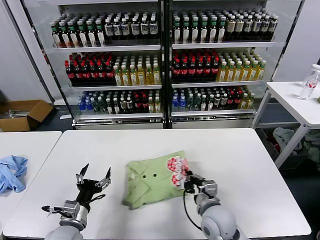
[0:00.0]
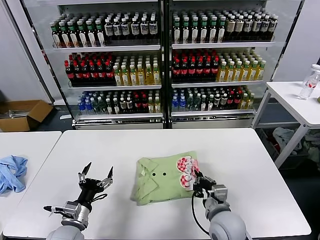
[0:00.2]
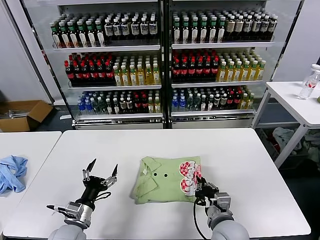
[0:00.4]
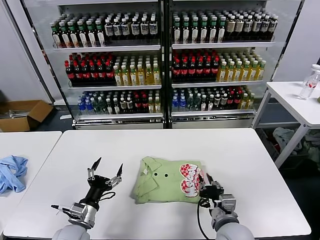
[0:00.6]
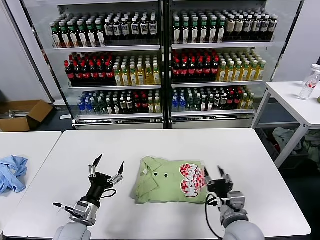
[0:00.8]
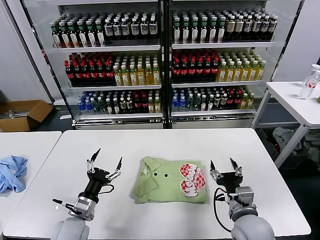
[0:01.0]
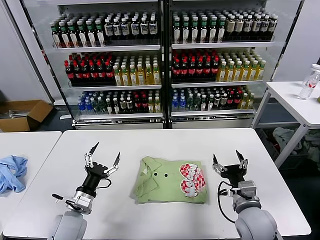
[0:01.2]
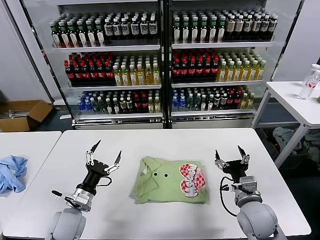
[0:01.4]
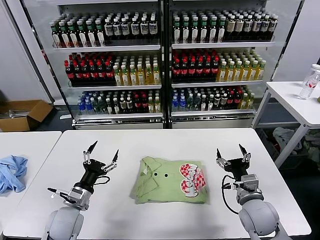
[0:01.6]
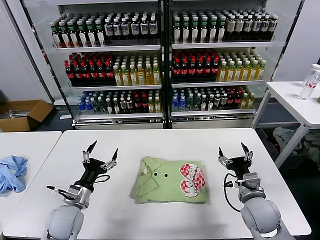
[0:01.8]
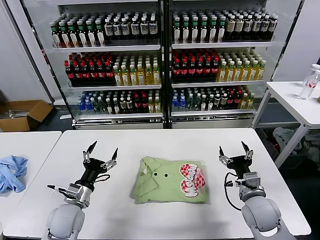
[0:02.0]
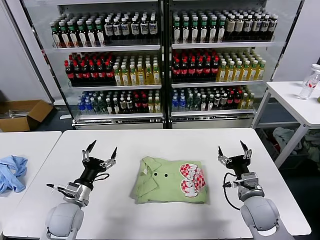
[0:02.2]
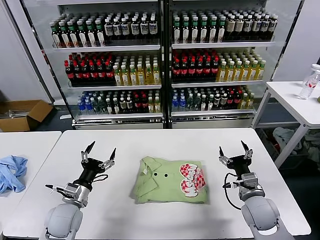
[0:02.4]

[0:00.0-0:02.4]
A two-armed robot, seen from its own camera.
Task of the whole recording: fold and organize the clothes.
0:00.0 to 0:01.2: The right gripper moves to the right, roughly 10 cm, and opens its fingers.
0:01.2 to 0:02.4: The right gripper changes place by approximately 5 cm.

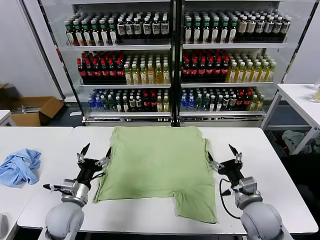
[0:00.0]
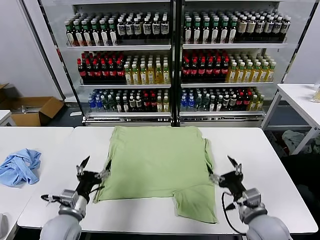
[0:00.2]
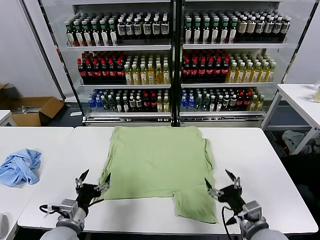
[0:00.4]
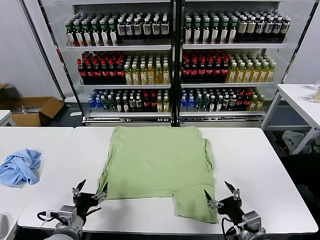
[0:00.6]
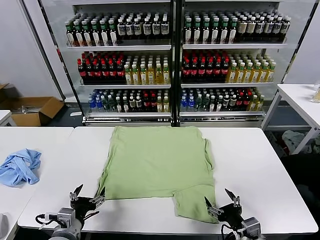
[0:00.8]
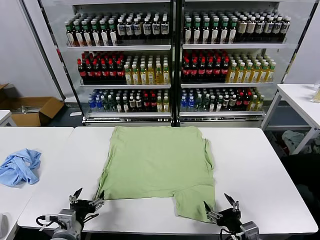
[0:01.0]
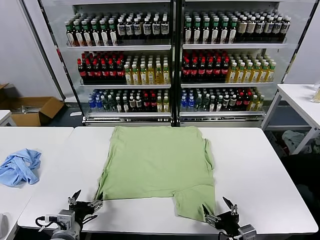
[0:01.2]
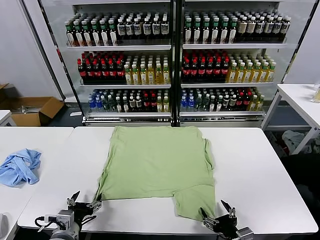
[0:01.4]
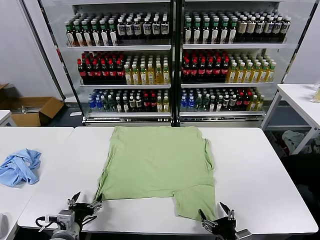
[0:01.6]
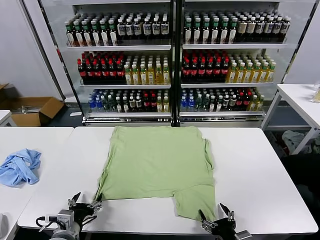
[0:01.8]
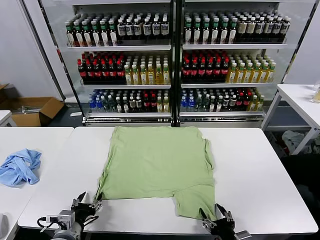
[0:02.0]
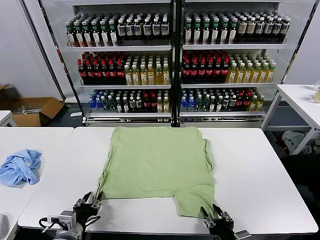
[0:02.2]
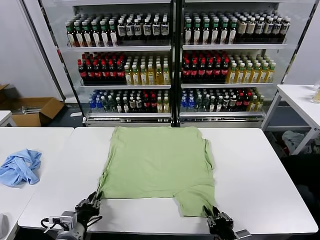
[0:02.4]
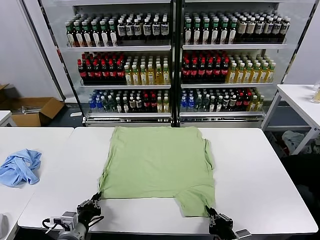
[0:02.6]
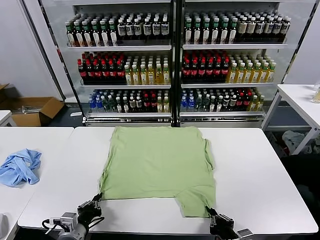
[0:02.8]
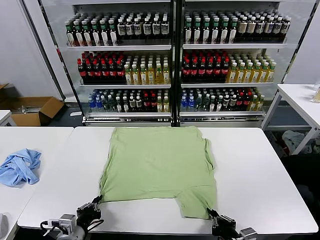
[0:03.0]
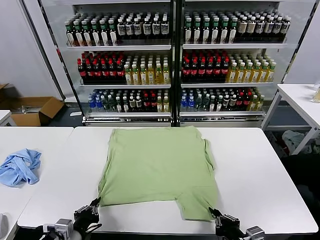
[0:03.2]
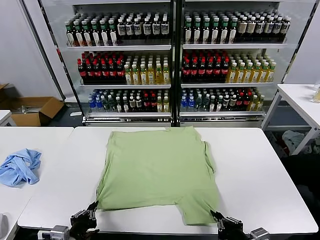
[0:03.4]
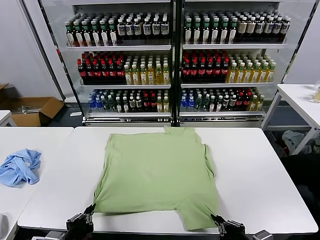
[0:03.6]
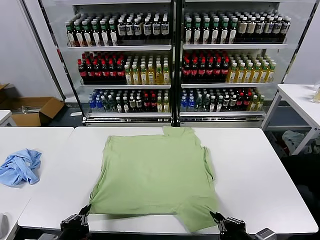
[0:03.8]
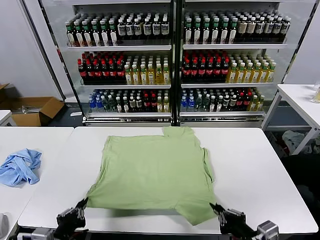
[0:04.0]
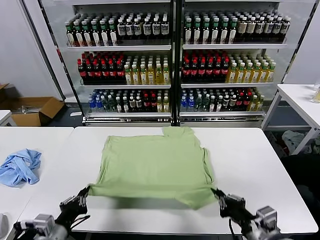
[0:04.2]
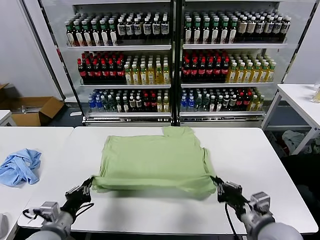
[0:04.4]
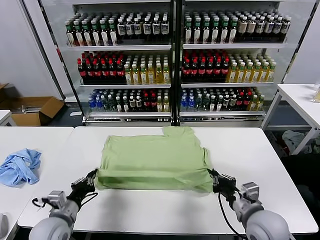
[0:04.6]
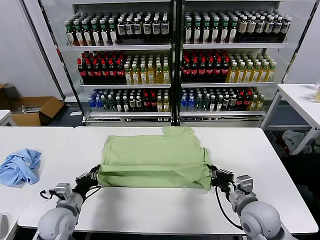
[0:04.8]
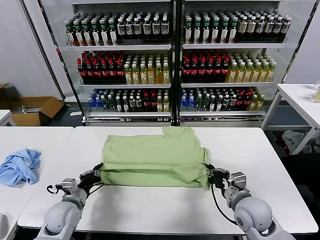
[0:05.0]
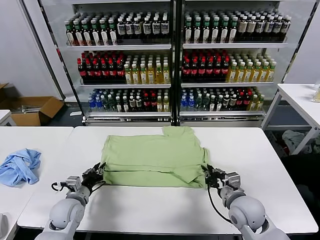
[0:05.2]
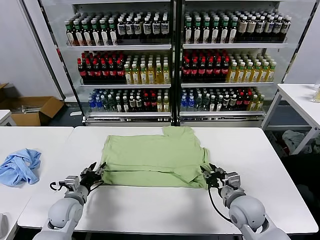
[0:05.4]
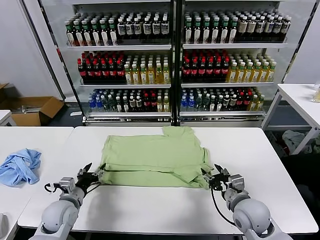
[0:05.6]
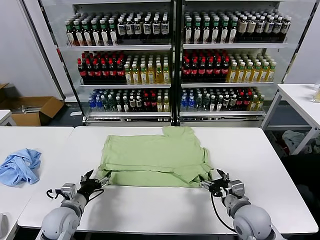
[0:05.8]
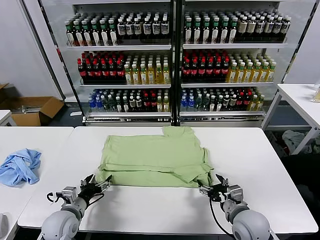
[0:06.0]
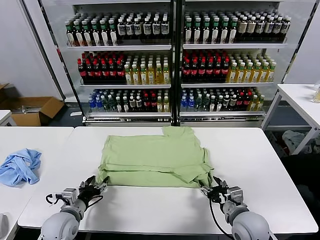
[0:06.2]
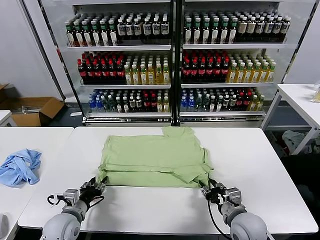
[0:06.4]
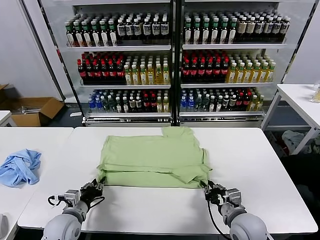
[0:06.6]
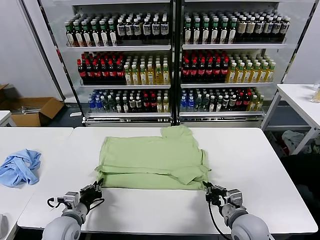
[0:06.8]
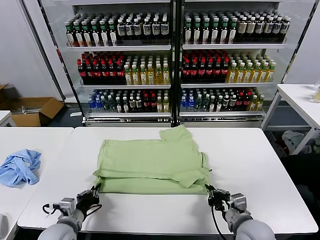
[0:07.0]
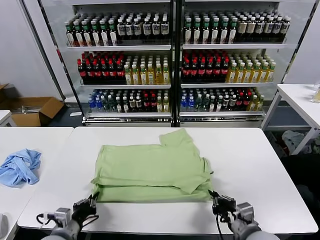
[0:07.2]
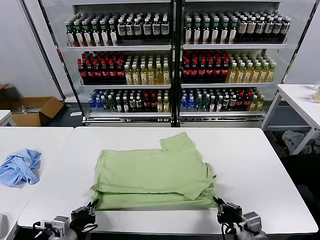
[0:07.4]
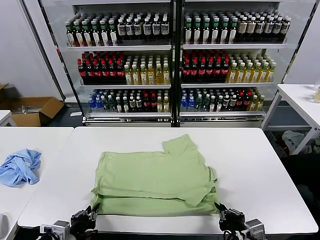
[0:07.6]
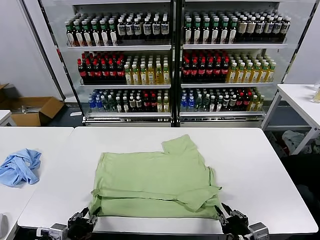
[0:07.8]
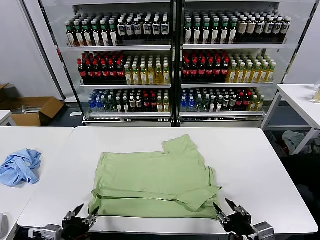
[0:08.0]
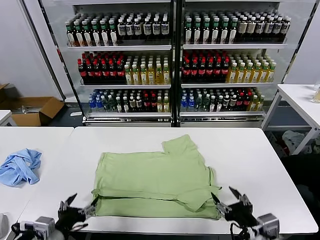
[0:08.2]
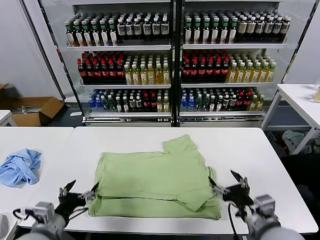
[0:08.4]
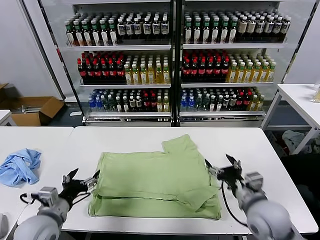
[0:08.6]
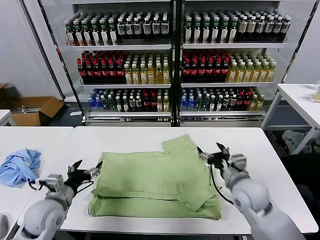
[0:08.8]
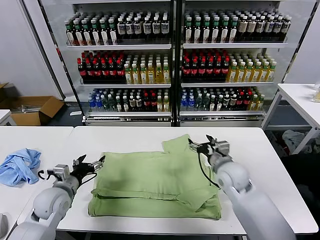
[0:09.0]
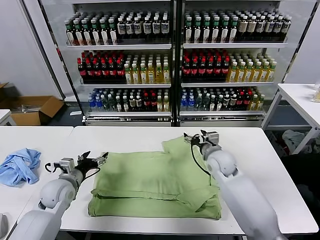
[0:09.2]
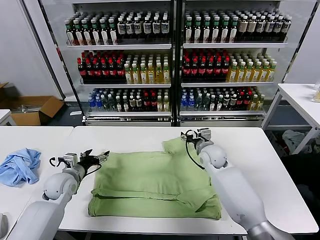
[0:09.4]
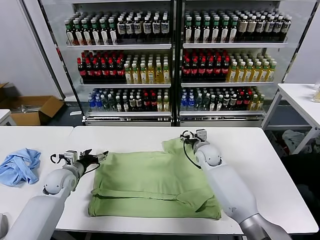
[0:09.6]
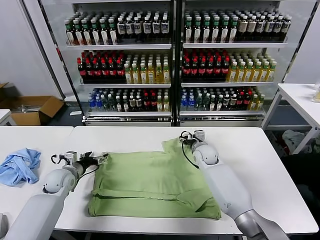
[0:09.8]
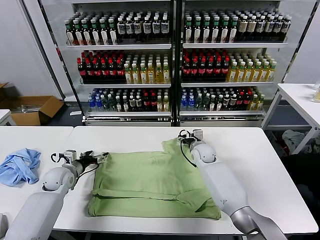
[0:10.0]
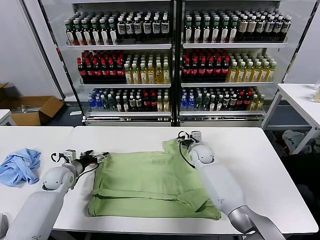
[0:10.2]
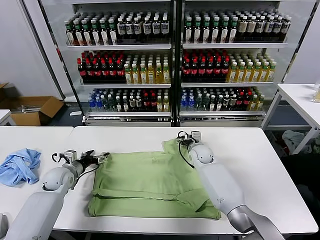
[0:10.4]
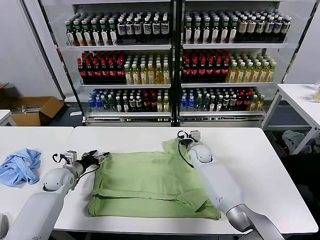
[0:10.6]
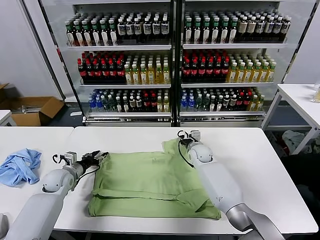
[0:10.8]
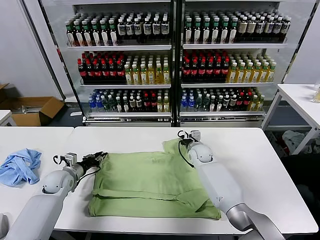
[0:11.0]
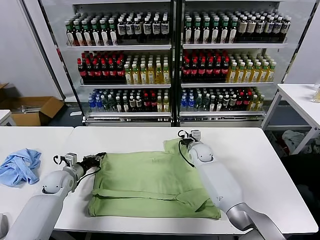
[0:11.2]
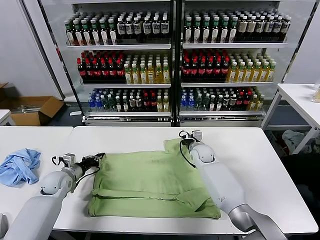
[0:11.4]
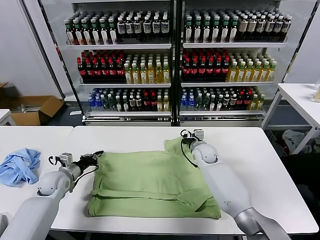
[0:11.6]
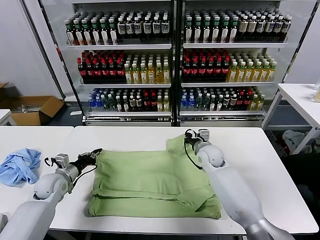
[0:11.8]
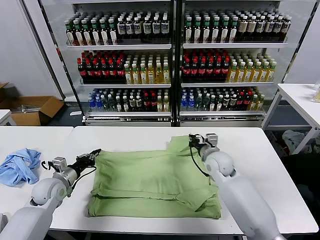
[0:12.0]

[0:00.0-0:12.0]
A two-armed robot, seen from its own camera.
Task of the whole recording: fold and organize the clothes.
Step, 0:00.0 to 0:03.2: use both grippers simultaneously to clamp the lower edge of the clothing fabric.
Step, 0:03.4 to 0:05.6: use both grippers to drag the lower edge of the fabric forward and fold it over the upper edge.
Step, 0:05.8 to 0:07.8: Drag the clothes downward with both gripper.
Step, 0:08.2 to 0:11.2: use both grippers simultaneously to clamp the upper edge of the clothing fabric.
0:01.6 to 0:03.0: The left gripper closes up. Meanwhile the right gripper closes.
0:03.0 to 0:04.4: The left gripper moves about 5 cm backward and comes back; the right gripper heads forward and upward, covering roughly 10 cm.
0:04.4 to 0:06.0: The left gripper shifts some 10 cm forward and downward, and opens its fingers; the right gripper is displaced downward by approximately 5 cm, and opens its fingers.
0:06.0 to 0:07.6: The grippers both shift backward by some 10 cm. The right gripper closes; the left gripper closes.
0:07.6 to 0:09.0: The right gripper is displaced forward by roughly 30 cm, and opens, while the left gripper is displaced forward by roughly 20 cm, and opens its fingers.
0:09.0 to 0:10.4: The left gripper moves forward and to the left, some 10 cm. The right gripper is displaced forward, downward and to the left by some 15 cm.
0:10.4 to 0:12.0: The right gripper travels backward, upward and to the right by roughly 15 cm, and closes up. The left gripper moves backward, about 5 cm, and closes its fingers.

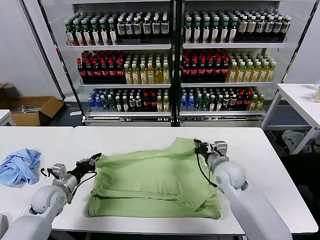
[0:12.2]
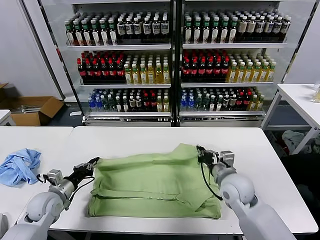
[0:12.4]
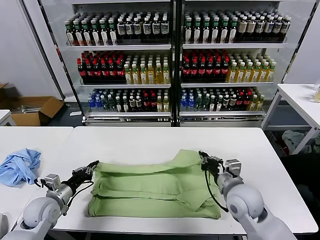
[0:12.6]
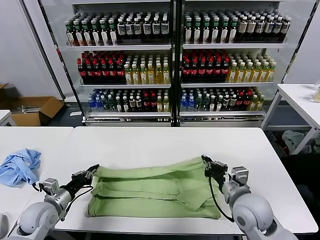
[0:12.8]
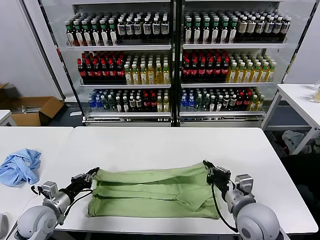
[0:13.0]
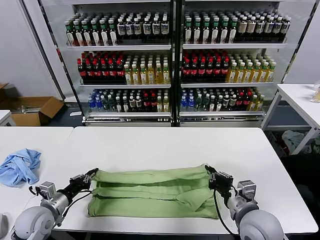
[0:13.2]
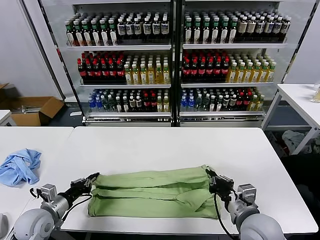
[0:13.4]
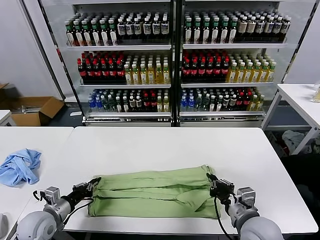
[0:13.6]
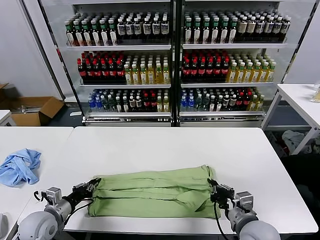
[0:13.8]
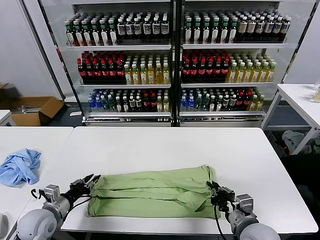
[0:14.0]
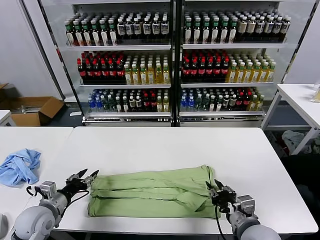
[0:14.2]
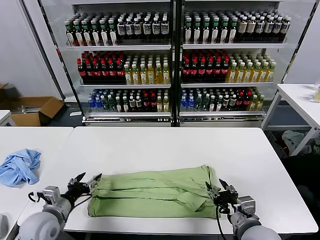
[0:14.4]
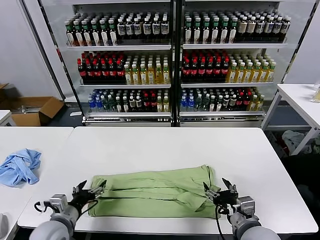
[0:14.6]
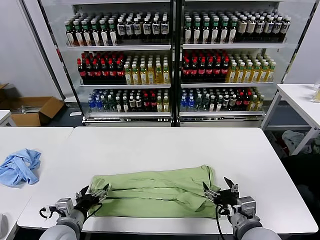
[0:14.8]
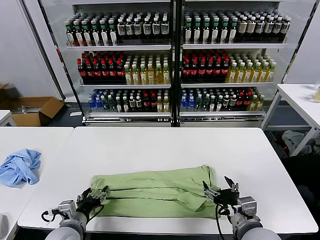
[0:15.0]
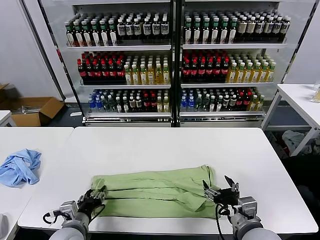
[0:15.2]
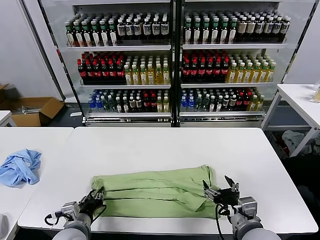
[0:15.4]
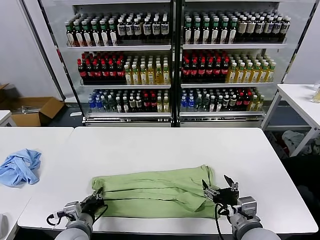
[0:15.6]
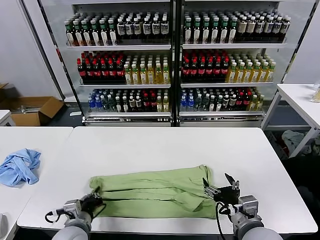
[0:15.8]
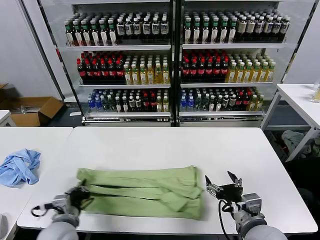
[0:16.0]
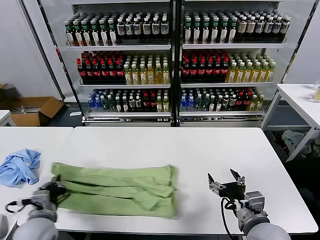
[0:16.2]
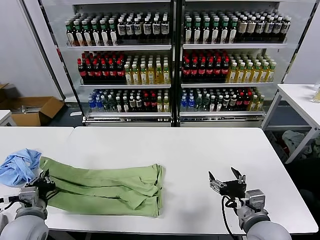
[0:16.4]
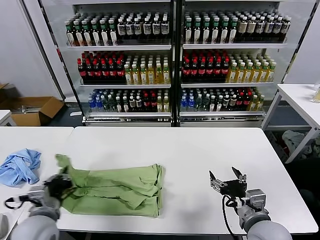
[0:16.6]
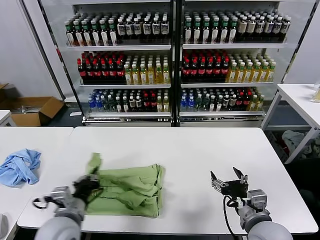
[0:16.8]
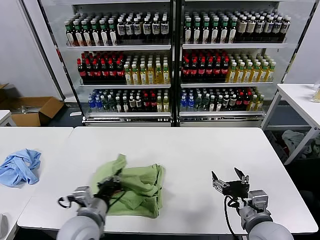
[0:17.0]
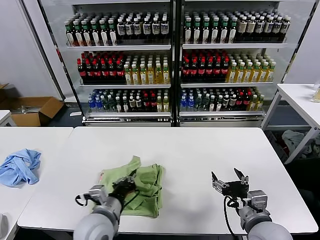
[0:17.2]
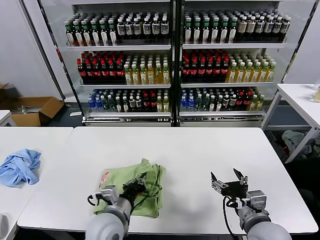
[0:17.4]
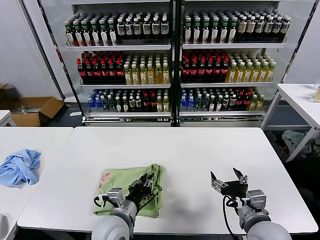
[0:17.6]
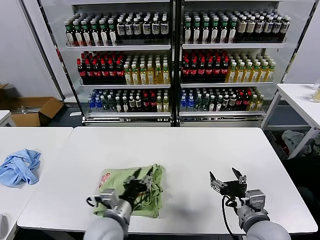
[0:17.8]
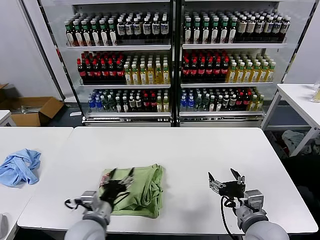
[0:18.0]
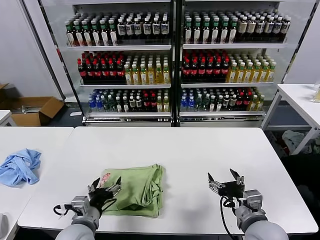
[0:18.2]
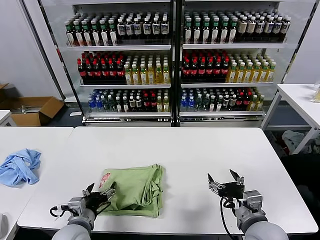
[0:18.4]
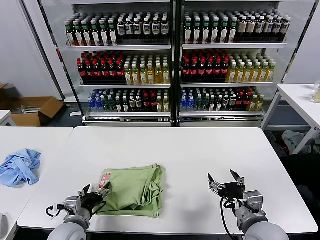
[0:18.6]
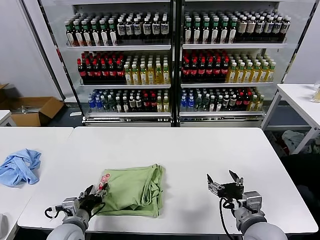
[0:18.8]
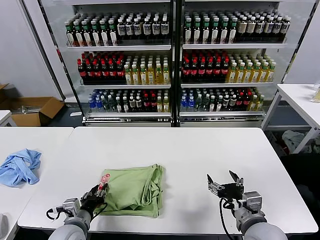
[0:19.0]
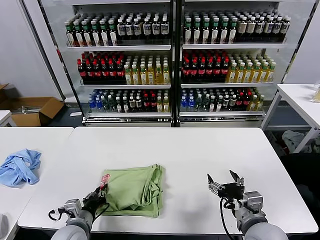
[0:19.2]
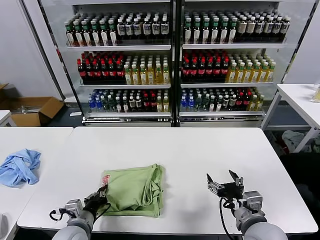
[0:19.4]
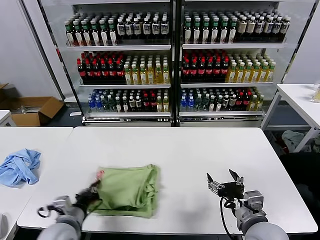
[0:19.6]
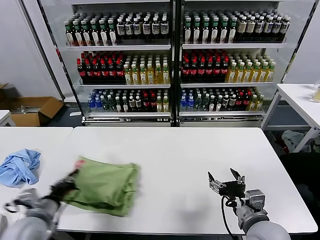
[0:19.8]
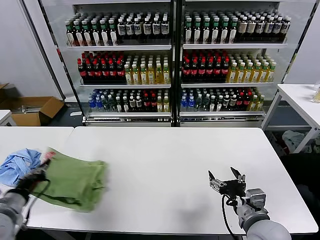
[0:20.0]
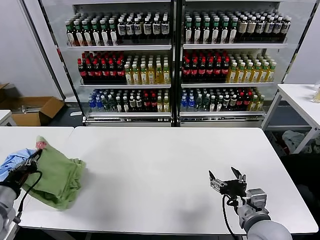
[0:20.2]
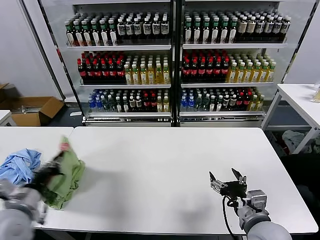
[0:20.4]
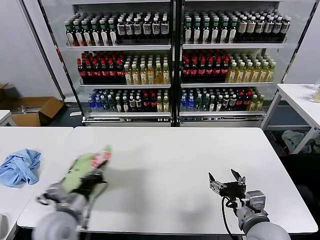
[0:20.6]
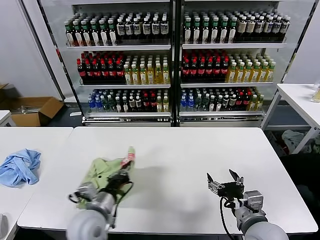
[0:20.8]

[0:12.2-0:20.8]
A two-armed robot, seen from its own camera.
Task of the whole recording: fold and organize the clothes.
Step, 0:12.2 to 0:14.2: use both grippers to drag the upper edge of the fabric backward and fold it over the lower edge.
Step, 0:14.4 to 0:15.6: use the left gripper to clamp the left edge of the fabric.
Step, 0:15.8 to 0:17.6: use the left gripper to drag the left edge of the fabric to the left and folds it over the right edge.
0:12.2 to 0:13.6: The left gripper travels backward by approximately 10 cm. The right gripper travels backward by roughly 15 cm.
0:13.6 to 0:15.0: The right gripper opens its fingers, while the left gripper travels to the right by approximately 10 cm, and opens up.
0:15.0 to 0:16.6: The left gripper is displaced upward by some 10 cm, and closes its fingers.
0:16.6 to 0:18.0: The left gripper heads to the right, covering approximately 15 cm, and opens up.
0:18.0 to 0:19.4: The left gripper travels to the left and downward by roughly 10 cm, and closes.
0:19.4 to 0:20.8: The left gripper is displaced upward by some 5 cm, and moves some 15 cm to the left and comes back.
